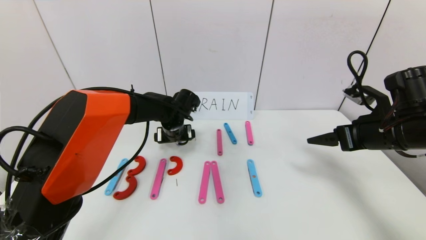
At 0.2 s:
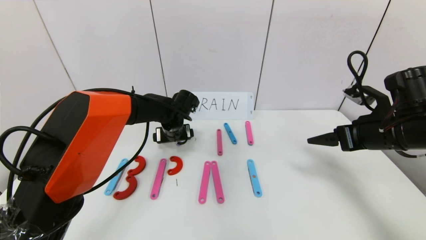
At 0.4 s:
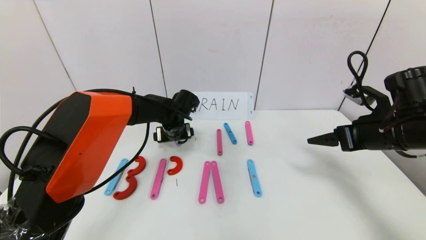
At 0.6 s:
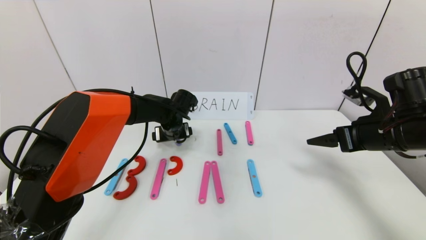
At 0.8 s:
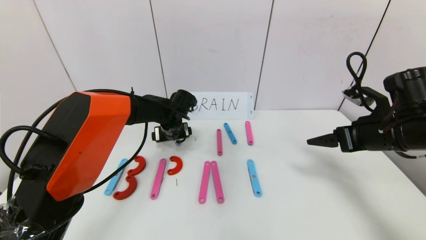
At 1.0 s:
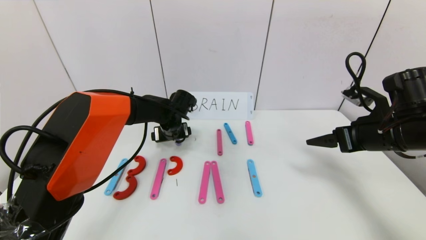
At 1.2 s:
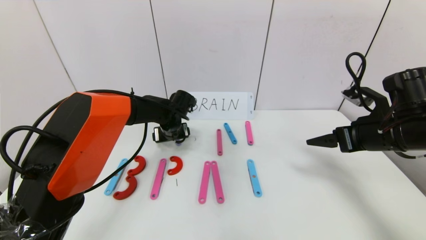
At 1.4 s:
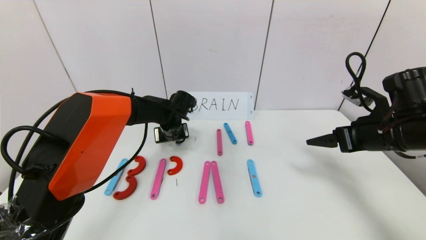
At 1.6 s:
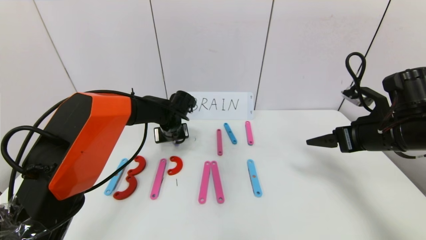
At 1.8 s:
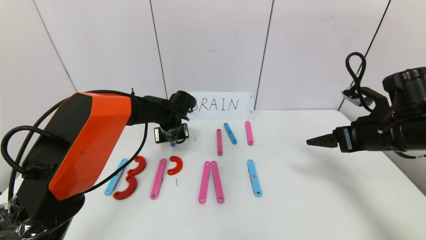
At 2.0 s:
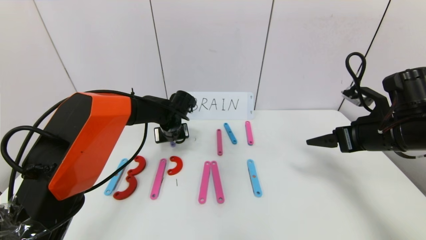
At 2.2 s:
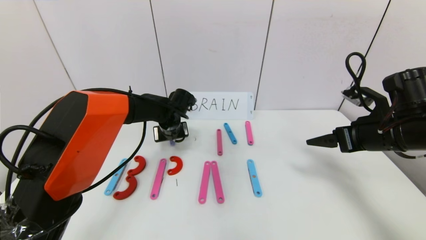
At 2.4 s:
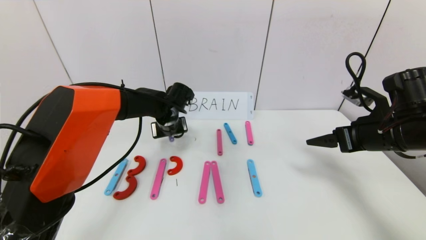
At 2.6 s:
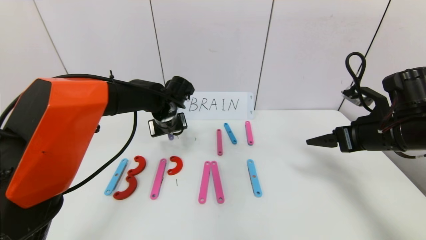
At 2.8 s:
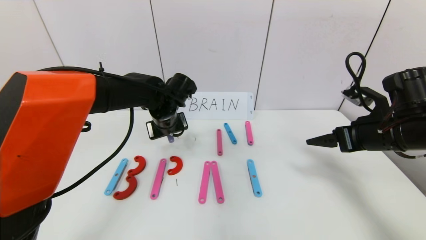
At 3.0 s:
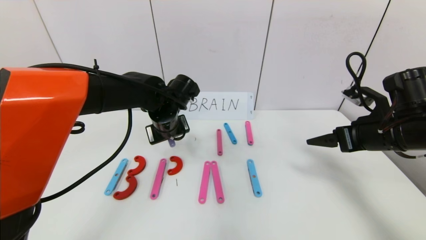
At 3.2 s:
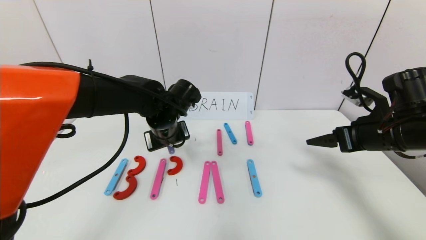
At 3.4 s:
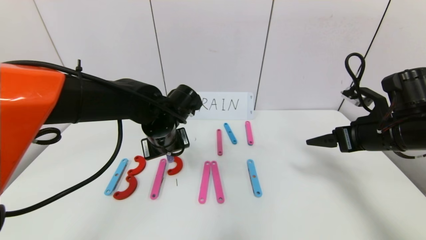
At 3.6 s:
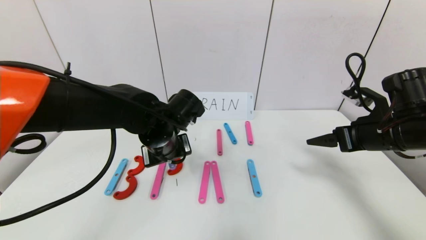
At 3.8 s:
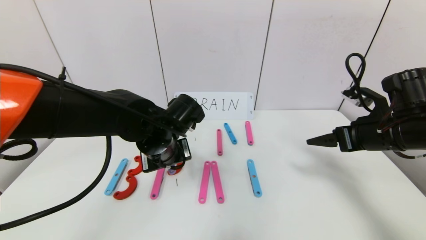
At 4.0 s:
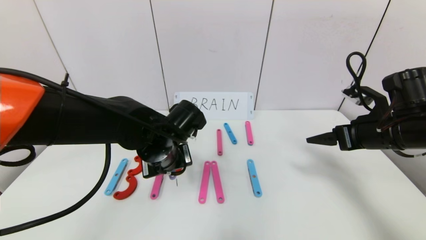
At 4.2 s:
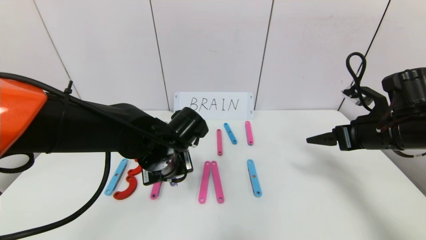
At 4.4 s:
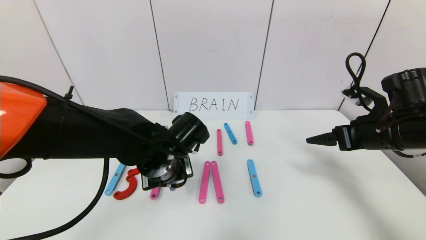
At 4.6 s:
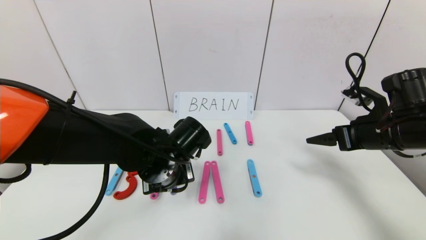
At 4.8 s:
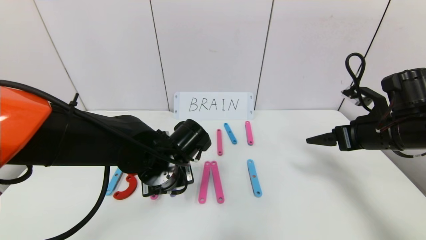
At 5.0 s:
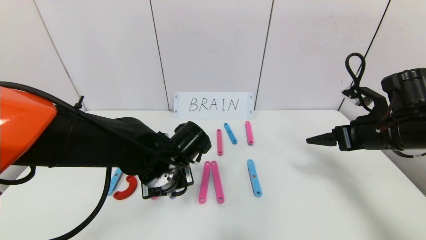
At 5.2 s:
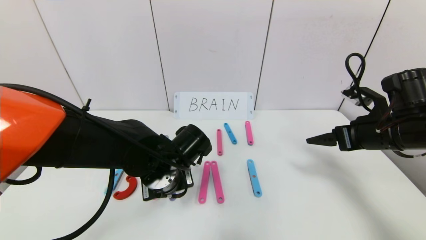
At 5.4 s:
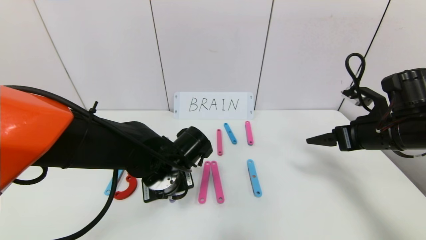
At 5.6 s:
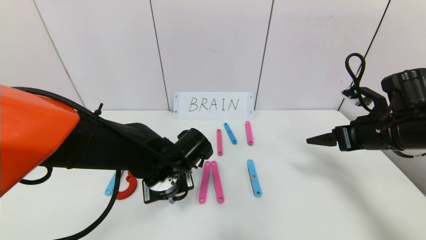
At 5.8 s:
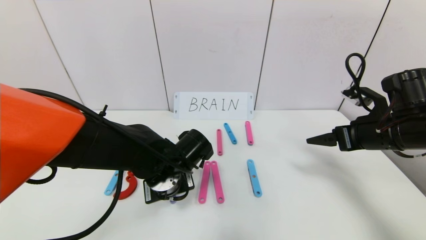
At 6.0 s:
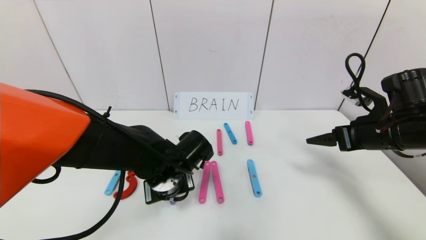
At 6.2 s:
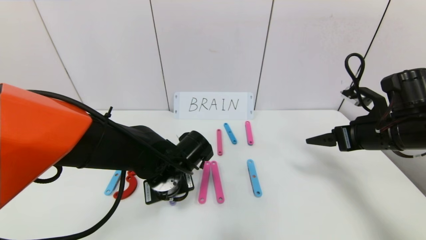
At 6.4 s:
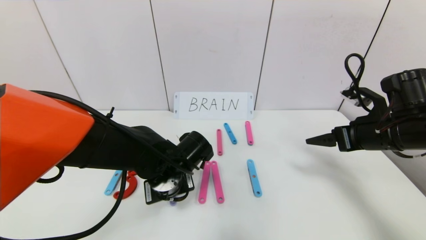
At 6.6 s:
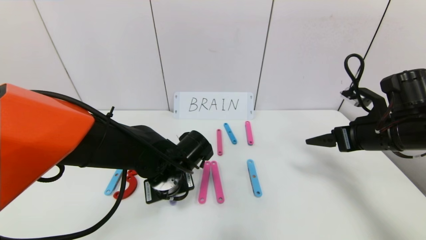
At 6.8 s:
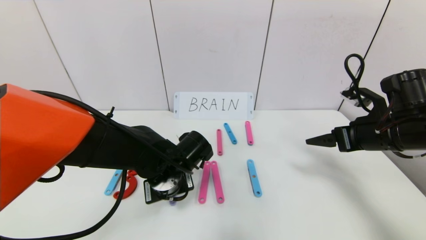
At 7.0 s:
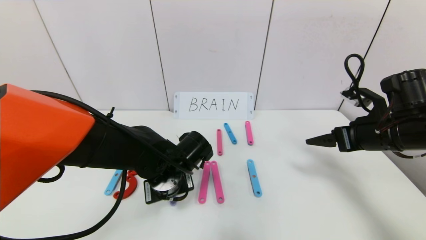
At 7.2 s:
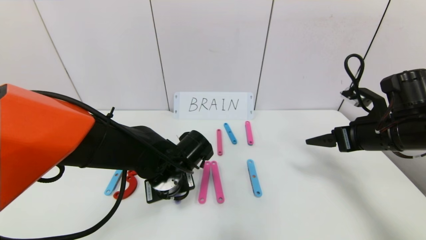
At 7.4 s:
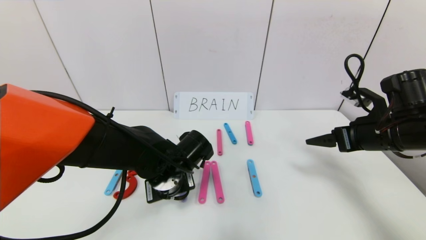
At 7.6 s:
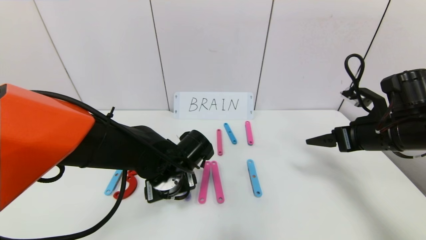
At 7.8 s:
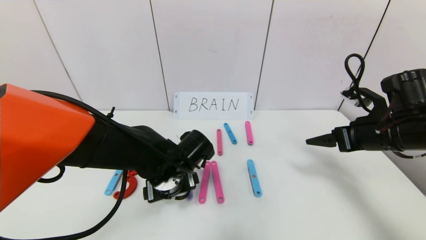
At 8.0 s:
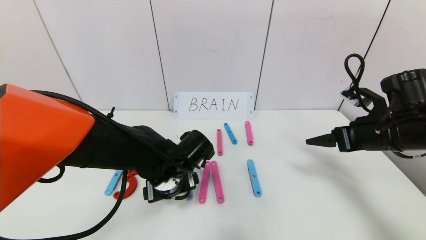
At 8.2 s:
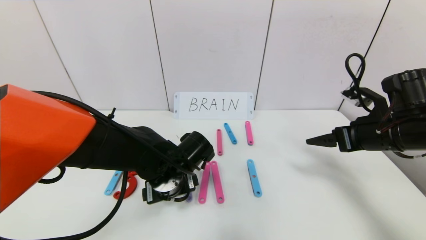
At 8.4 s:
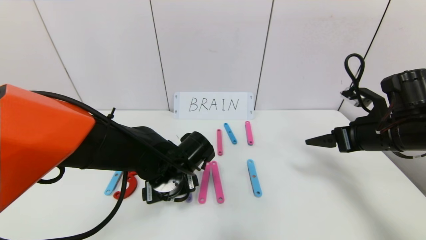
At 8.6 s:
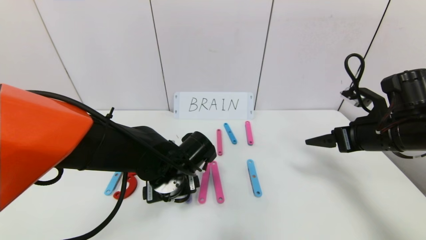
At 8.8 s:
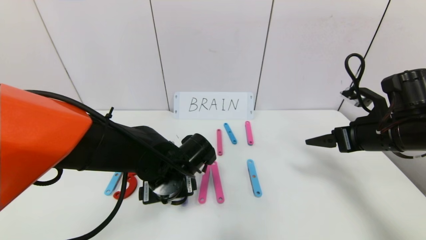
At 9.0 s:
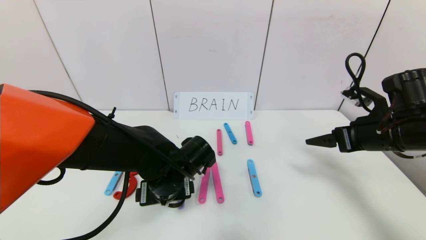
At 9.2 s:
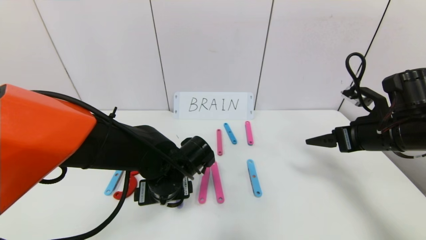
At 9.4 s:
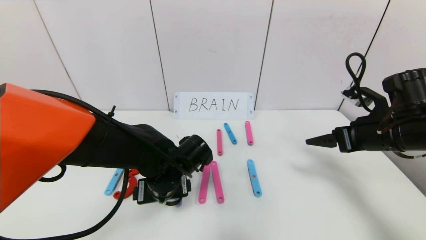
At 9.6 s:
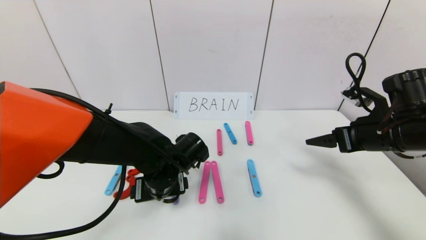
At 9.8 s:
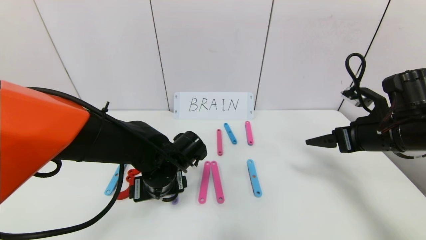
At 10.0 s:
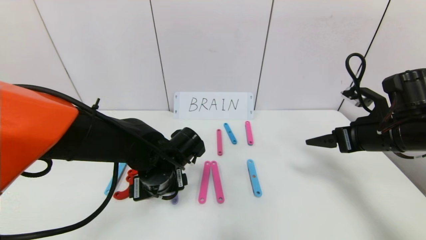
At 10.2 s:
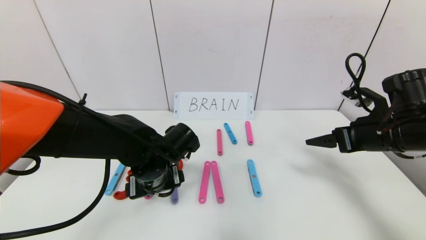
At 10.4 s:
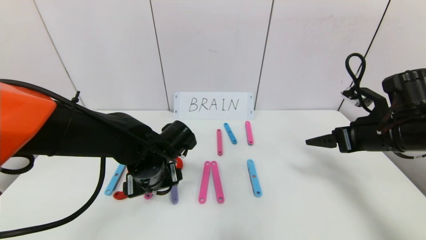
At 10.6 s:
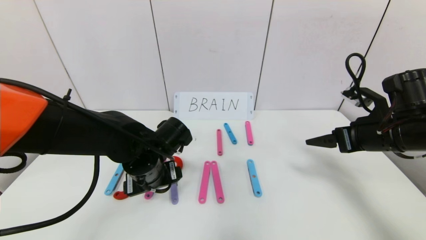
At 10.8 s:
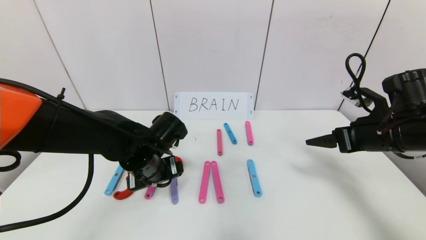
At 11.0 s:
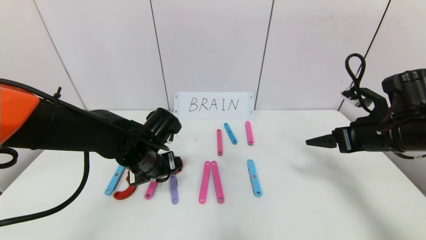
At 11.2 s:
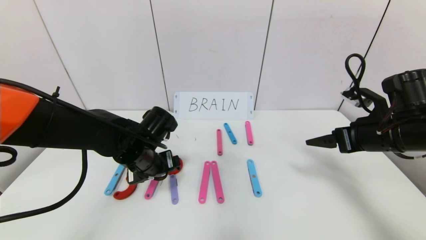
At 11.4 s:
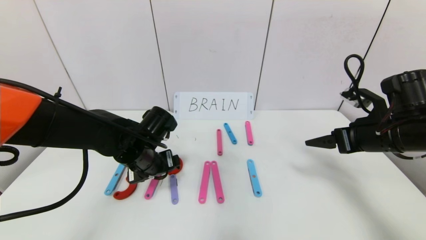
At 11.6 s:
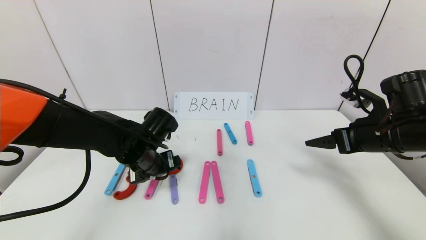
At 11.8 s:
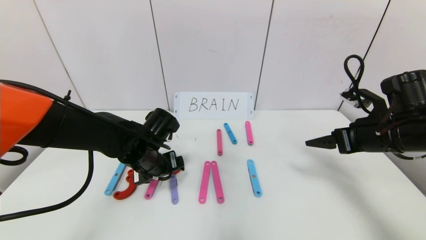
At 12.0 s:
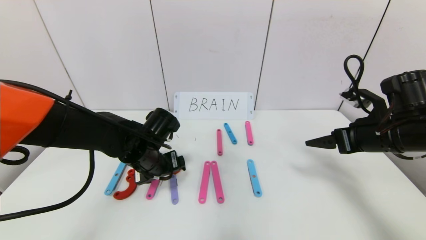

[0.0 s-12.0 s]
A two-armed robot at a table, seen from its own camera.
Task of the whole recording: rearrange the word baai as brain.
0.0 to 1.6 s: The left gripper closes.
1.6 to 3.0 s: The left gripper heads backward and upward, covering roughly 10 cm.
3.0 to 4.4 s: The left gripper shifts about 10 cm backward.
4.4 to 6.0 s: The grippers stay close to where they were, moving slightly.
6.0 to 7.6 s: The left gripper opens its fingers.
7.6 to 10.4 s: There are only small adjustments of the grippers.
10.4 to 12.0 s: The grippers make only small movements.

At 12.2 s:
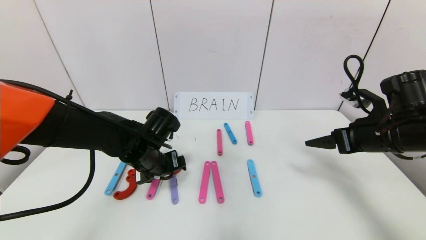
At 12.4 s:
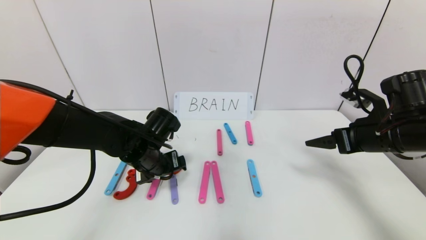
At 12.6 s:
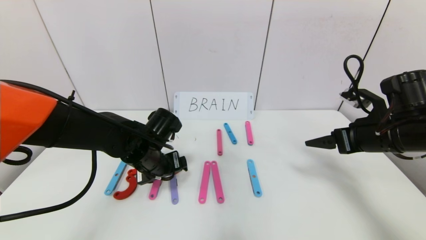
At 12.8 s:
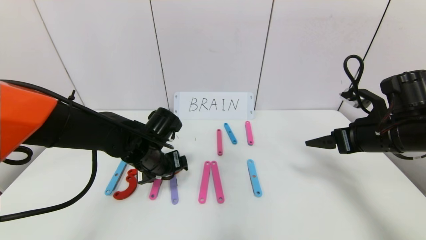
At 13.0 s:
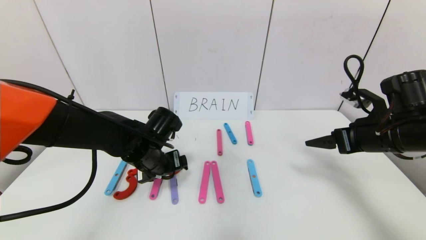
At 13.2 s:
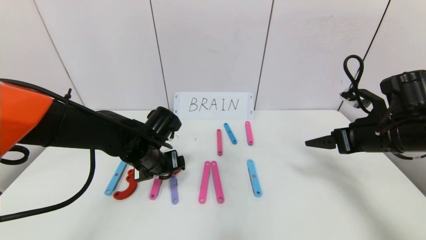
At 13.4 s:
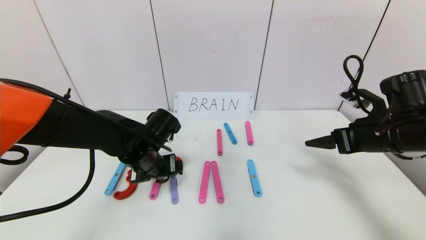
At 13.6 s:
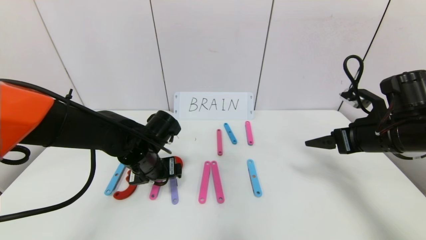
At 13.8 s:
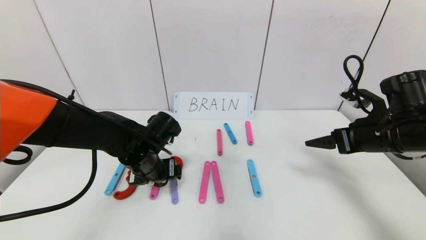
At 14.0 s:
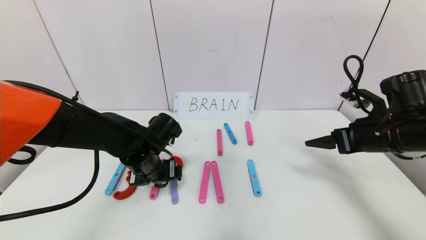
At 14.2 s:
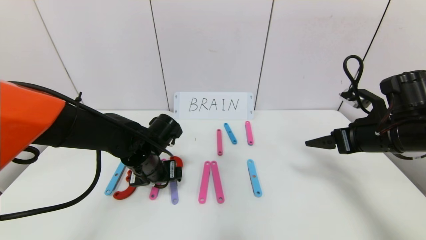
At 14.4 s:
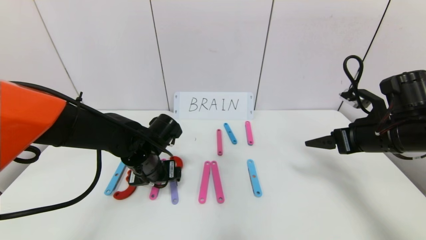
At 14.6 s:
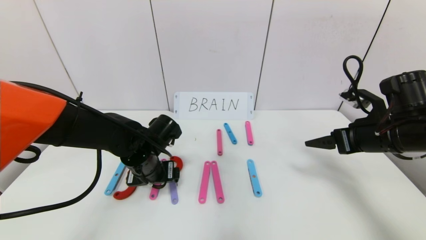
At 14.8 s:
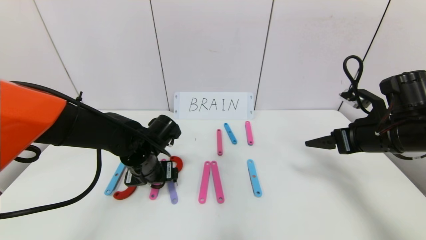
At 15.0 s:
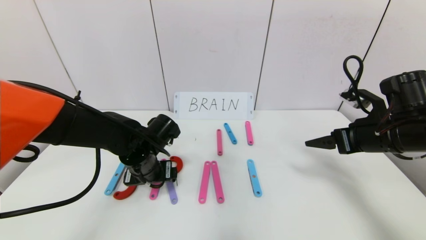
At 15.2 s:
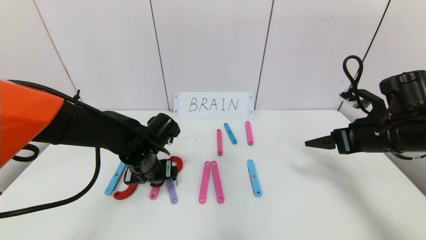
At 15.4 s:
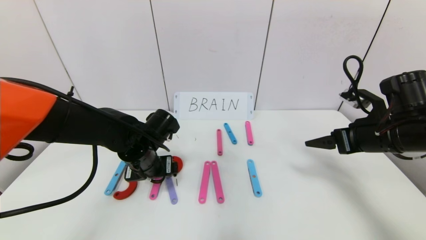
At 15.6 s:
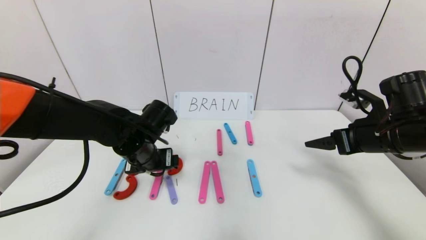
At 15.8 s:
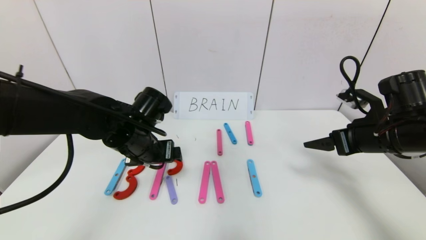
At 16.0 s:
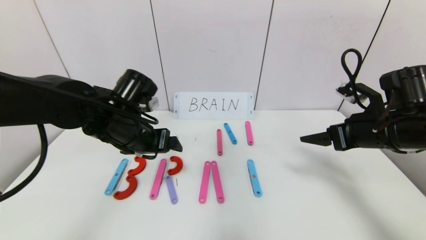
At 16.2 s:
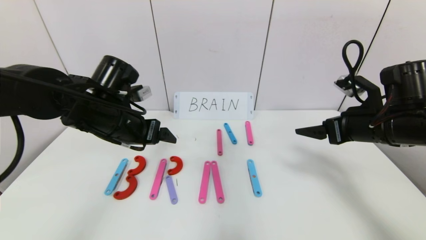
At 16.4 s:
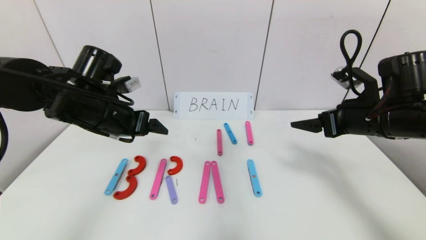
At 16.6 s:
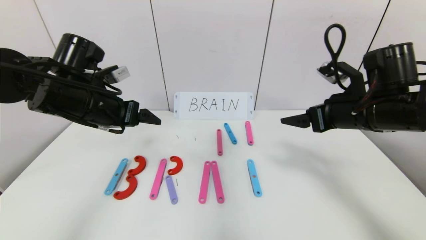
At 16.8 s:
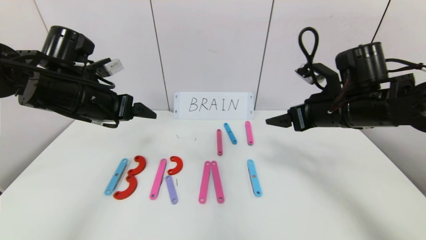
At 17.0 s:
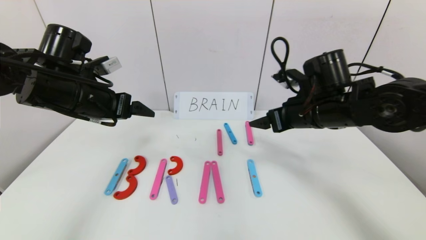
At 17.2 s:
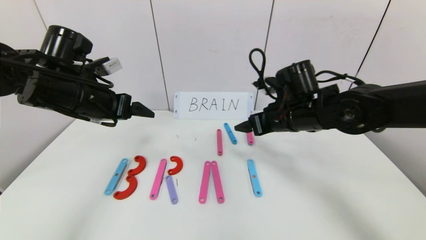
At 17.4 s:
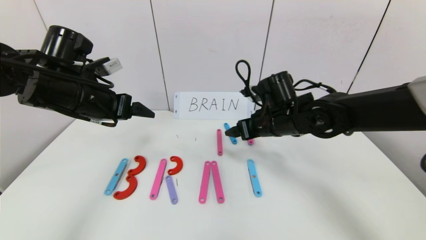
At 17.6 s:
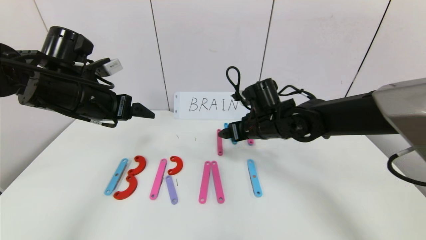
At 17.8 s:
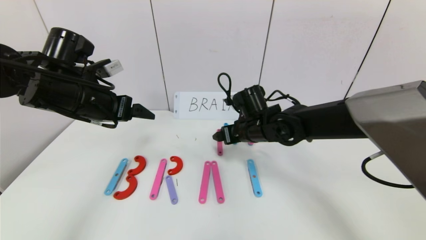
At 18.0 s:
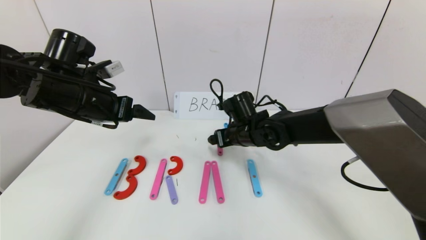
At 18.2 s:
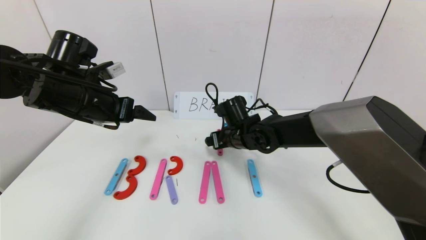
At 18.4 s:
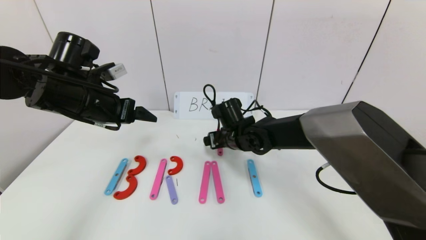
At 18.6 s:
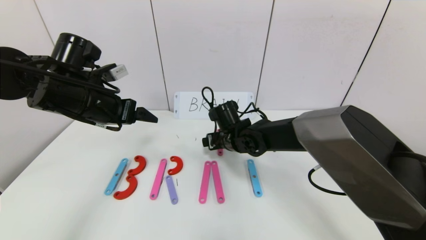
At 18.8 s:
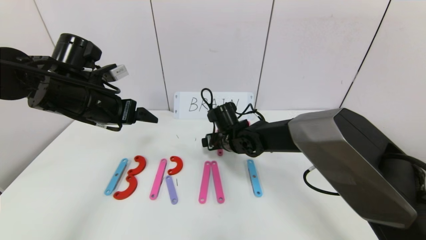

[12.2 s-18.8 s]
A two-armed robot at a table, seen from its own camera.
Task of the whole recording: rearrange the word baai as brain.
Step, 12.2 to 15.8 s: Place the character R between first character B and third character A.
12.2 to 15.4 s: The grippers make only small movements.
15.4 to 17.2 s: The right gripper heads to the left and forward, covering some 15 cm; the left gripper is displaced upward and to the left by approximately 15 cm.
17.2 to 18.8 s: The right gripper travels to the left, downward and forward by approximately 15 cm.
